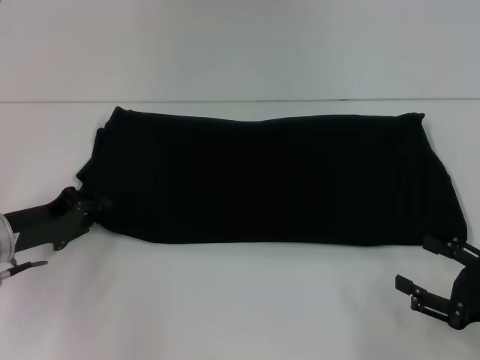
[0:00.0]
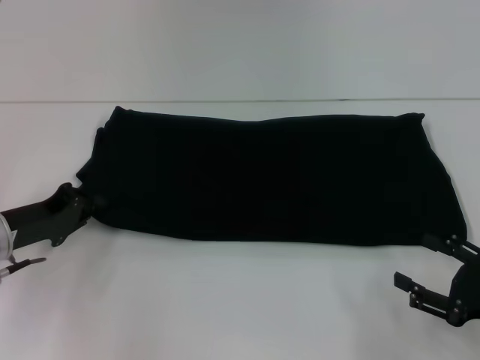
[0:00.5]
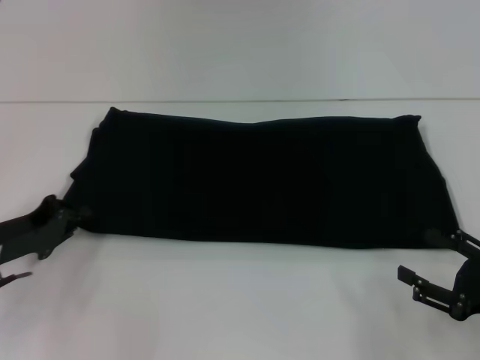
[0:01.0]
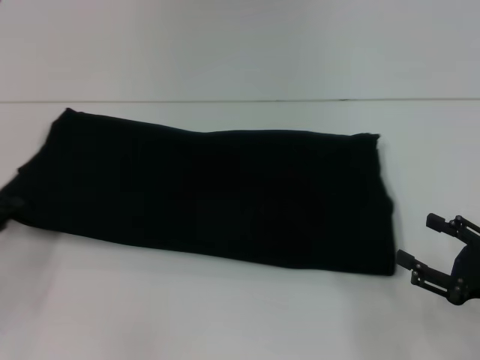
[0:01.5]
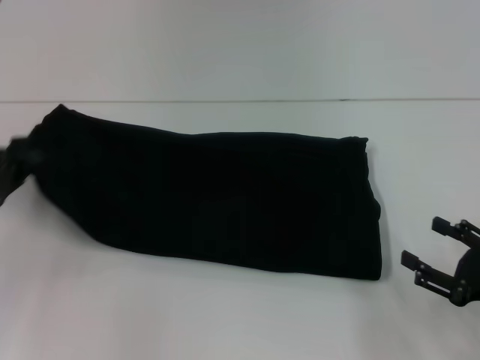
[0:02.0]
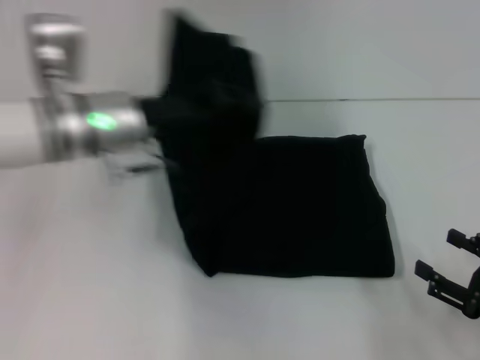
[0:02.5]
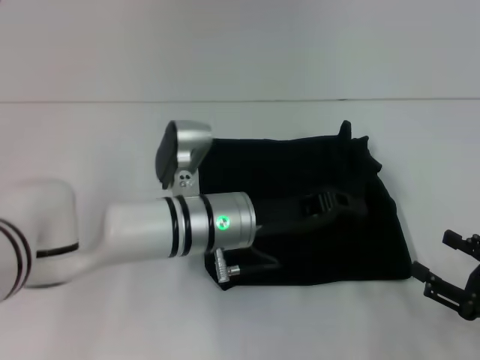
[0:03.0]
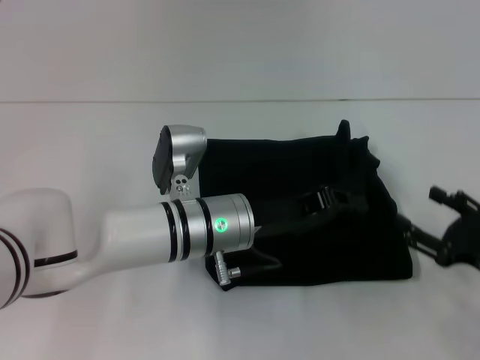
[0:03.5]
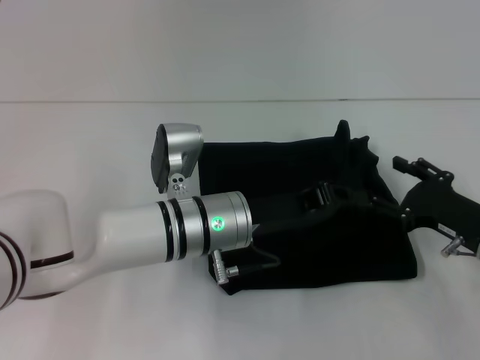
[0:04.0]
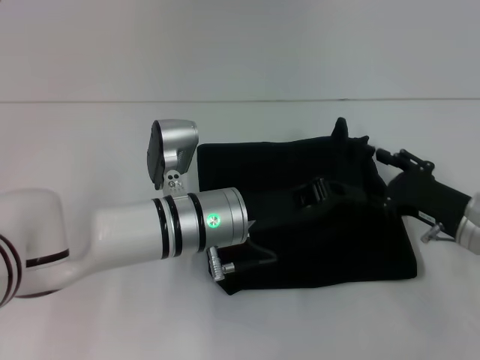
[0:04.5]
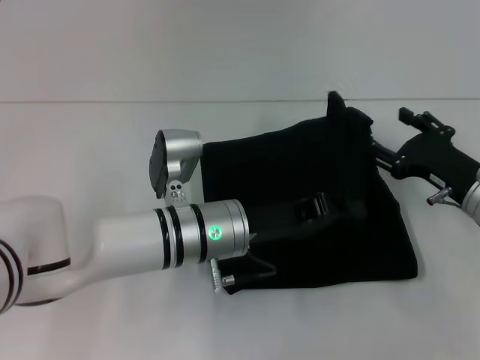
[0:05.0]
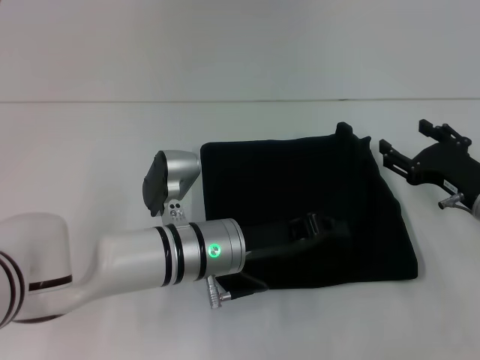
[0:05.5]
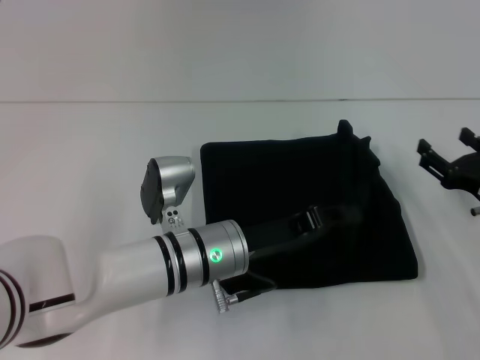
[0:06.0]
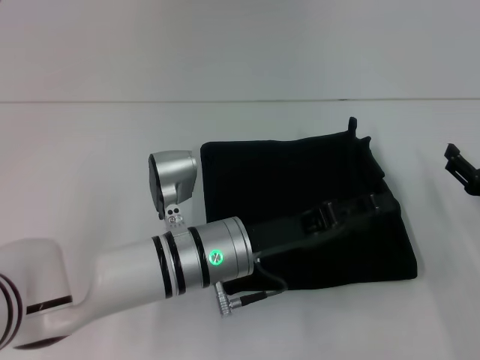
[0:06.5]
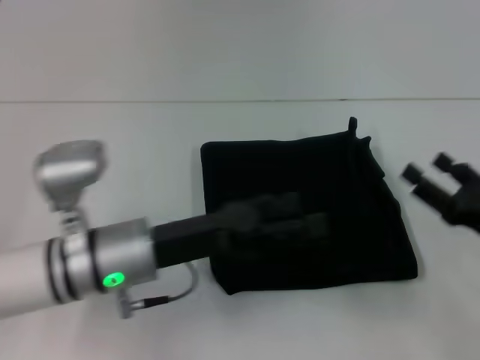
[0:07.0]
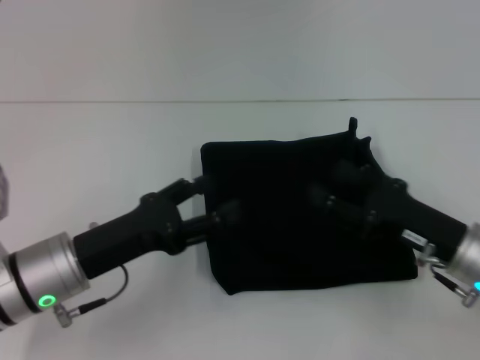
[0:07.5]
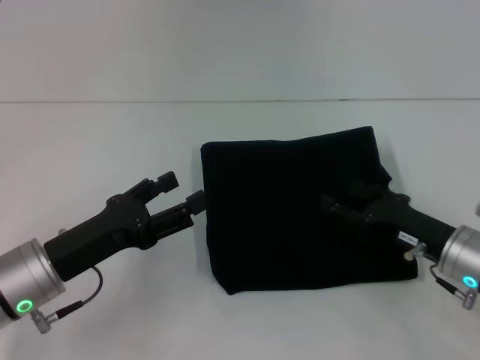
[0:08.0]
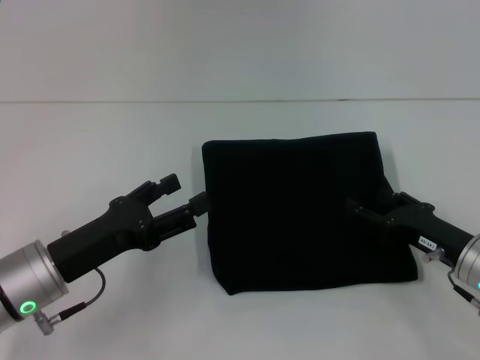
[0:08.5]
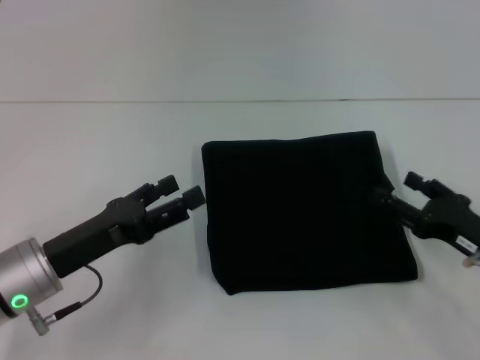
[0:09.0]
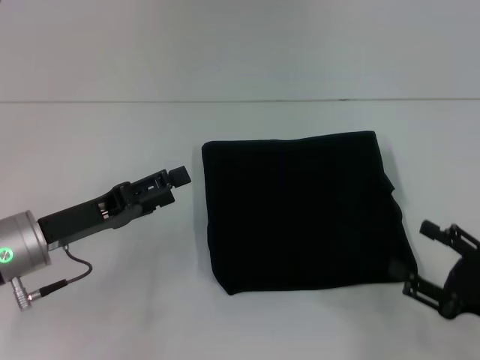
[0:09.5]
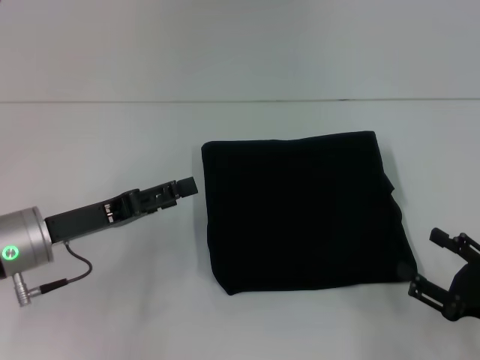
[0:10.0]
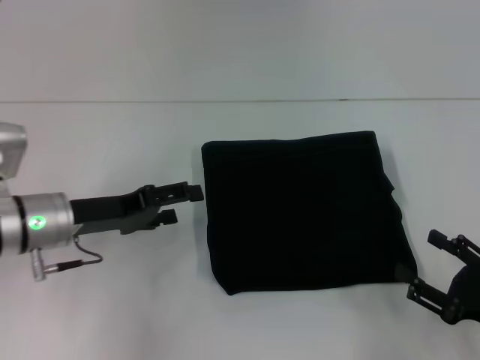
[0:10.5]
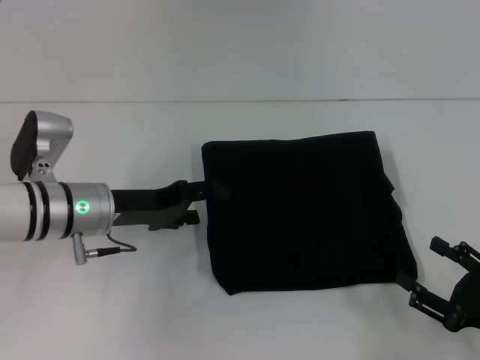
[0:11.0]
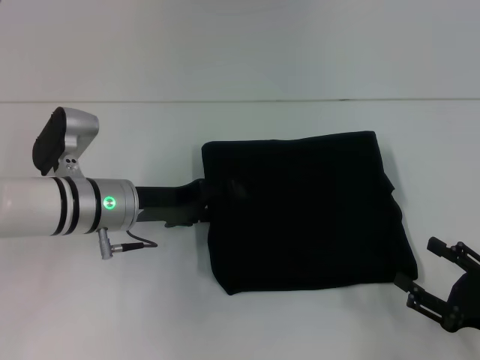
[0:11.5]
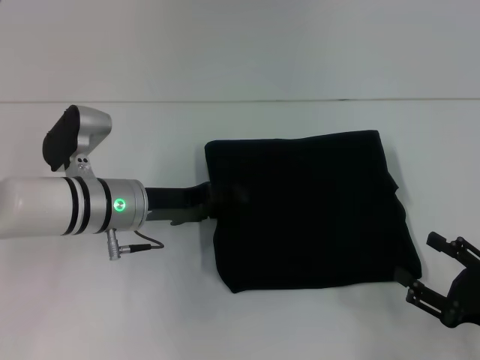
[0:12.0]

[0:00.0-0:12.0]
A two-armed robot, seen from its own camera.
Step, 0:00.0 to 0:05.5: Fold the clothes with your left hand.
0:00.0 to 0:02.0: The left gripper goes some 5 cm to the left, and closes its fingers.
0:02.0 to 0:04.0: The right gripper shifts roughly 10 cm forward, while the left gripper is displaced to the right by some 30 cm.
0:06.0 to 0:08.0: The right gripper moves to the left, approximately 5 cm. The left gripper moves to the left, about 15 cm, and opens its fingers.
0:08.0 to 0:10.0: The right gripper heads backward and to the right, covering approximately 10 cm.
0:10.0 to 0:12.0: The left gripper is displaced to the right and forward by roughly 10 cm.

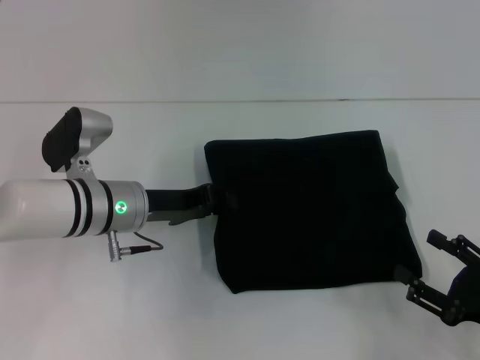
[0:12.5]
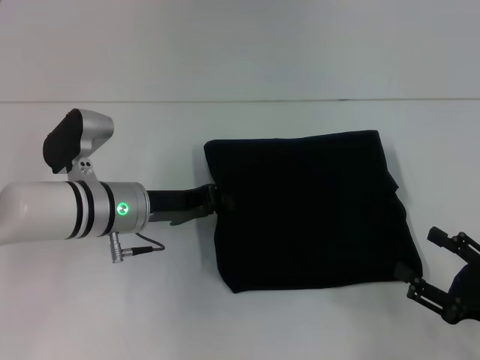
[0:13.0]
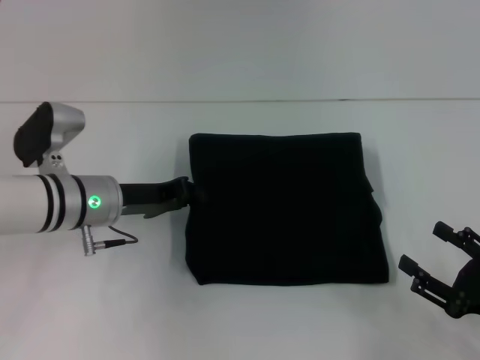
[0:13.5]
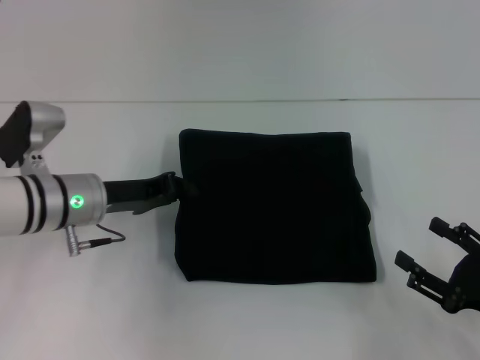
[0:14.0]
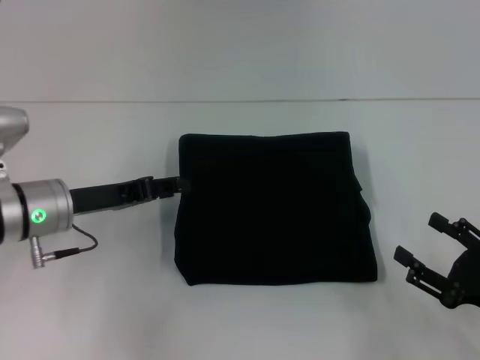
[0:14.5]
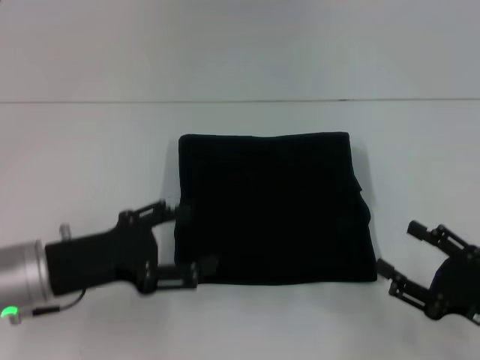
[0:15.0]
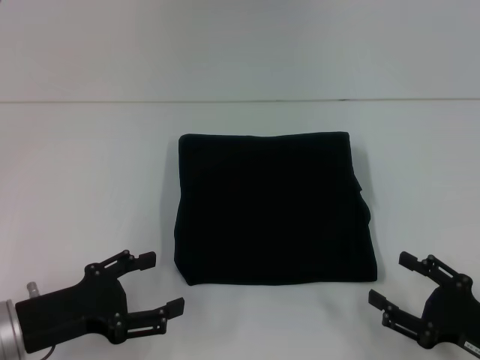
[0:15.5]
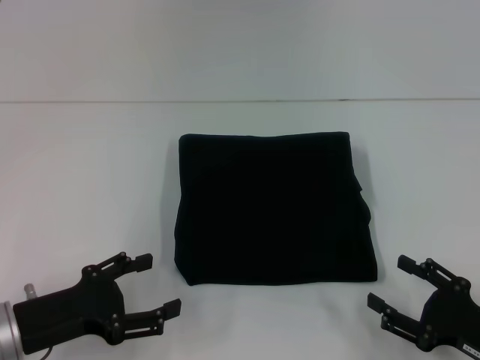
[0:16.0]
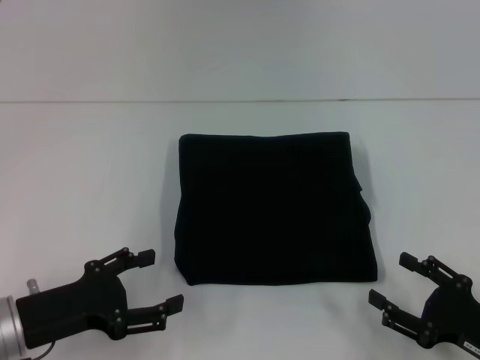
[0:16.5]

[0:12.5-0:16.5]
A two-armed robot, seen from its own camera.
0:12.5 to 0:14.5: The left gripper shifts some 5 cm to the left, and closes, then opens again.
0:14.5 to 0:16.5: The left gripper goes some 10 cm backward, and opens.
